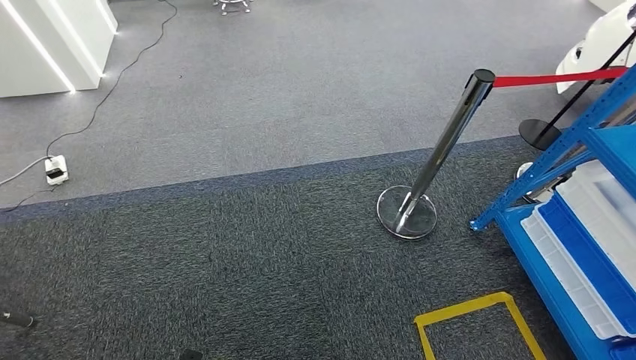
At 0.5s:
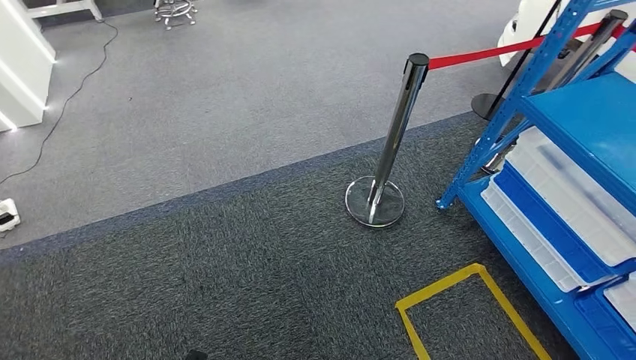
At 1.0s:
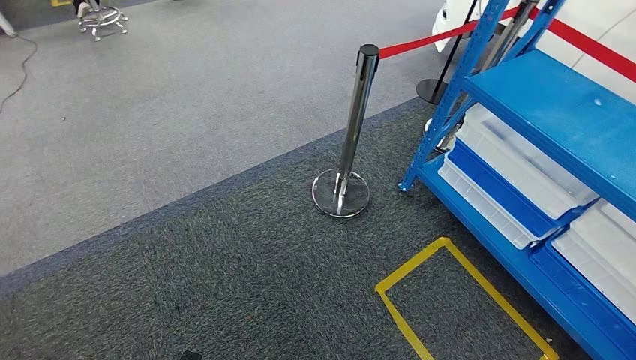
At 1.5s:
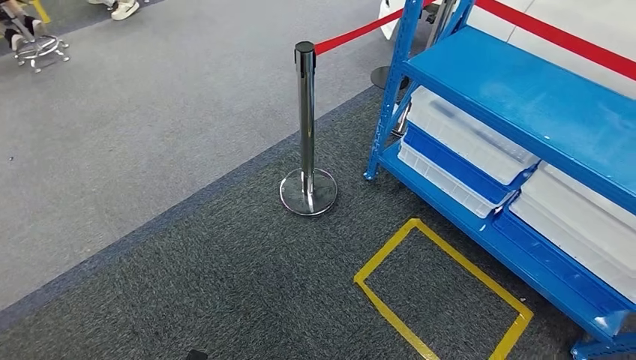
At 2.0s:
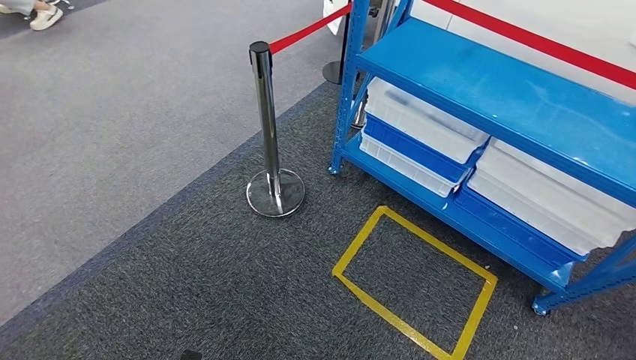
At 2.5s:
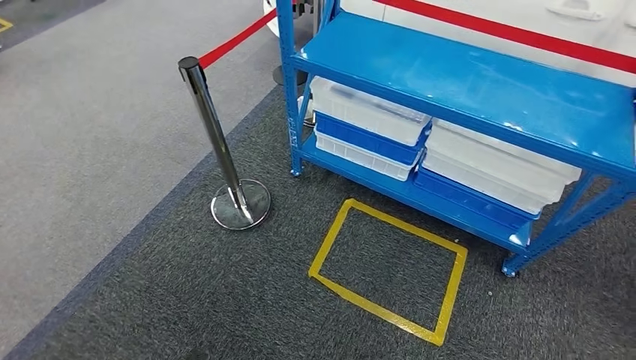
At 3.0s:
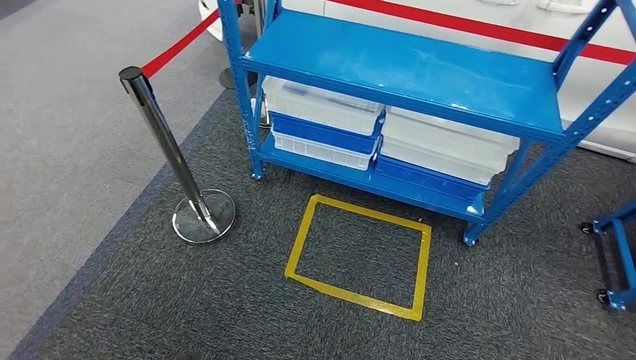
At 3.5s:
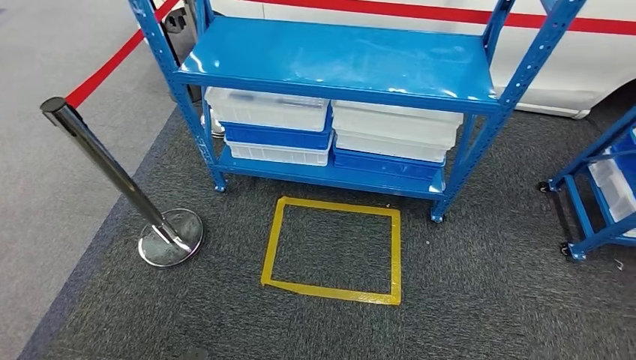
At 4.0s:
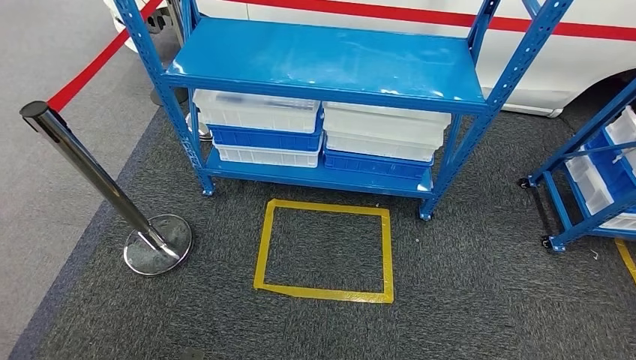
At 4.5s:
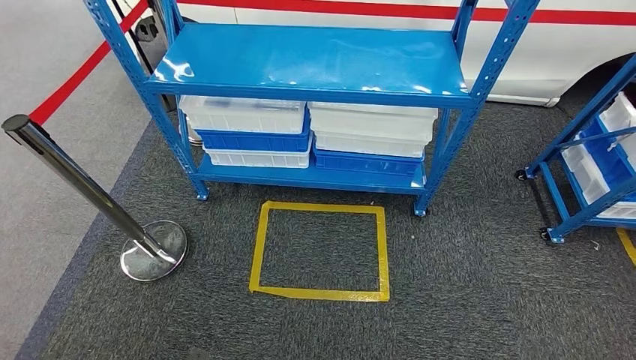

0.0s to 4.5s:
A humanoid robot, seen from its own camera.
Step, 0.0s to 4.5s: Return to the initial position at the shelf.
